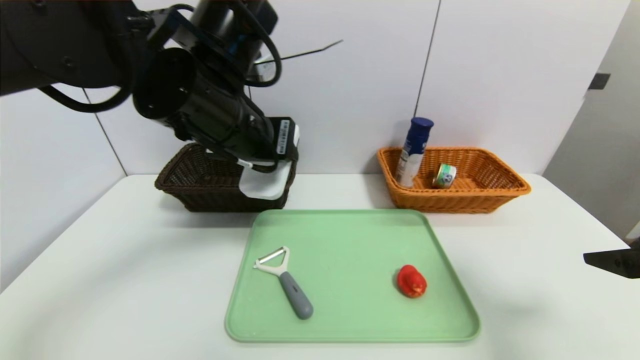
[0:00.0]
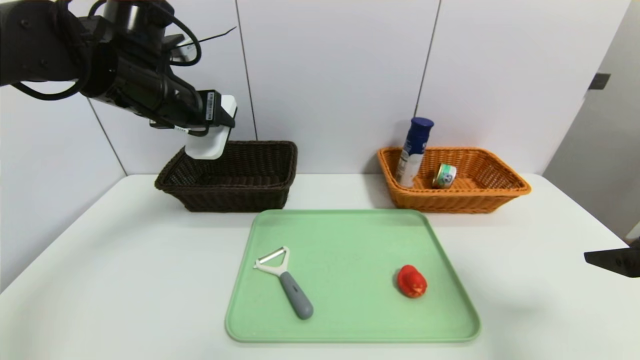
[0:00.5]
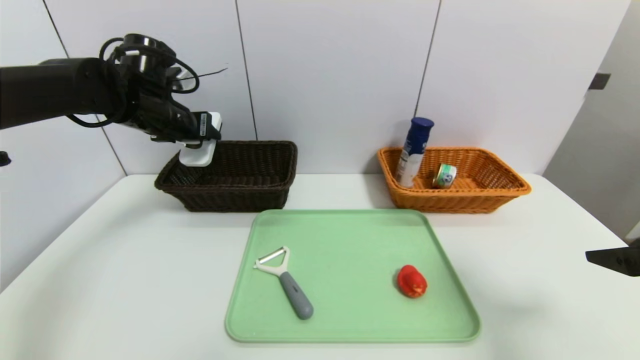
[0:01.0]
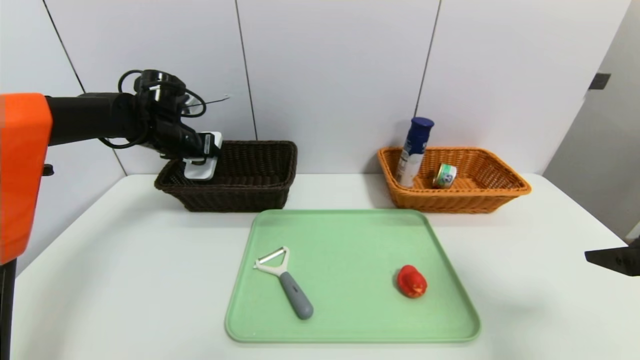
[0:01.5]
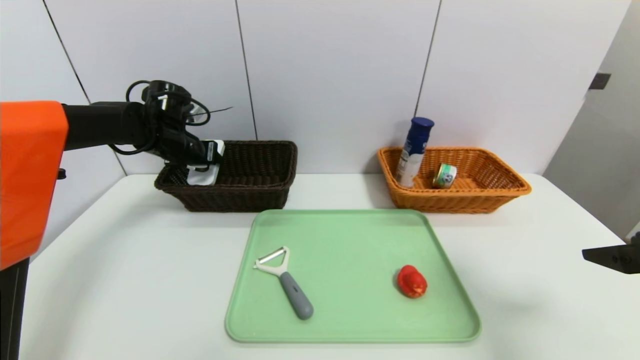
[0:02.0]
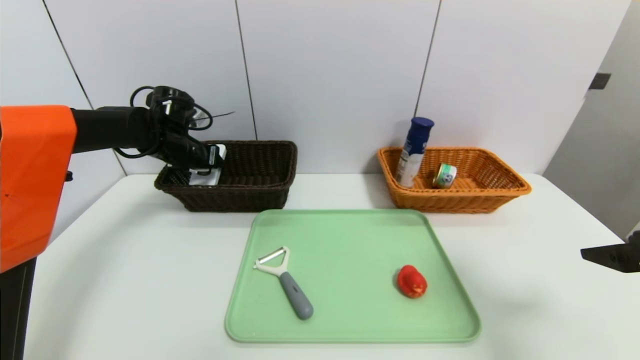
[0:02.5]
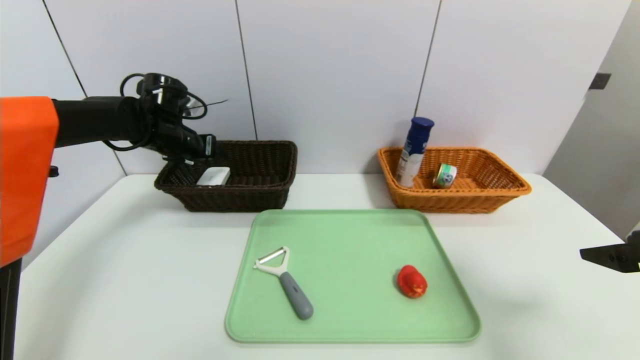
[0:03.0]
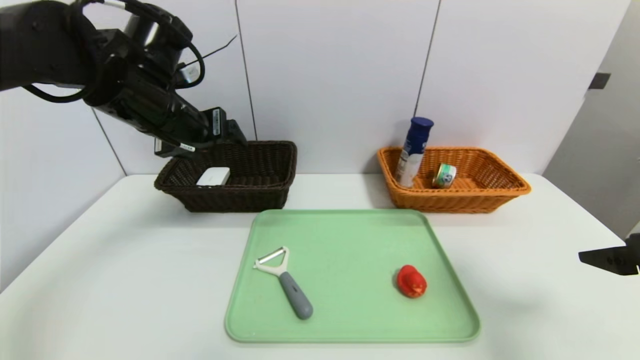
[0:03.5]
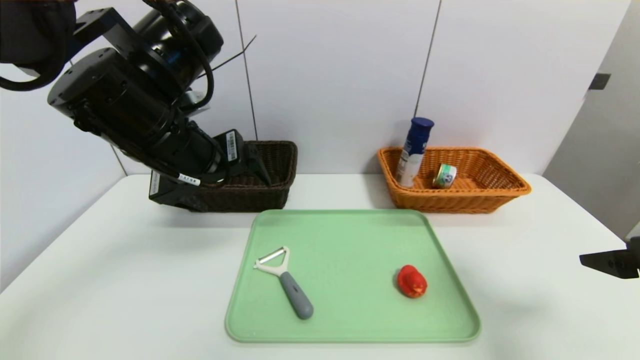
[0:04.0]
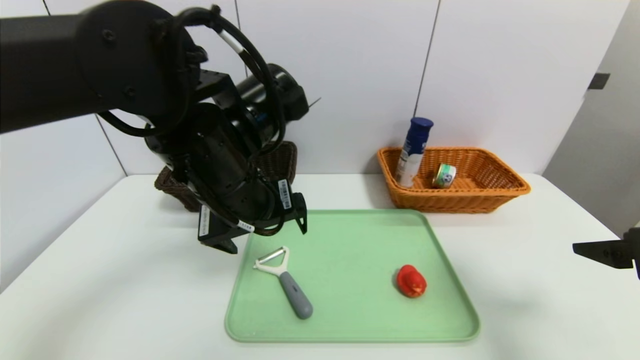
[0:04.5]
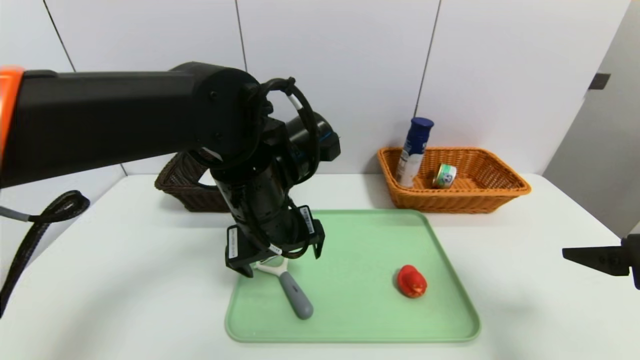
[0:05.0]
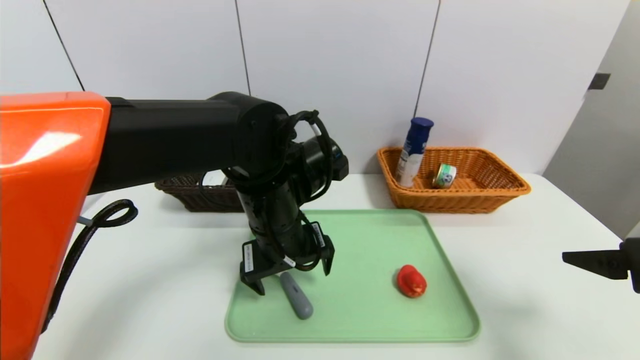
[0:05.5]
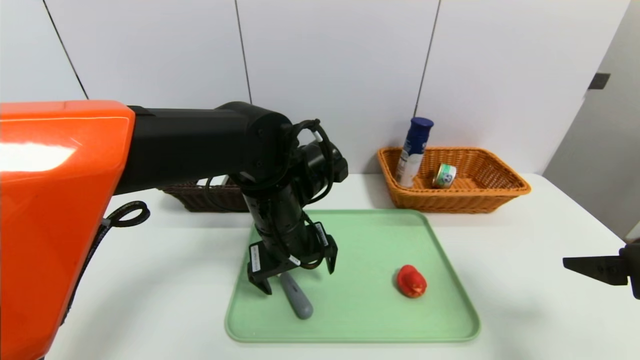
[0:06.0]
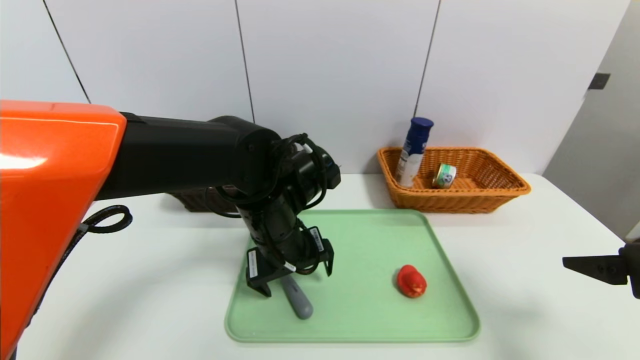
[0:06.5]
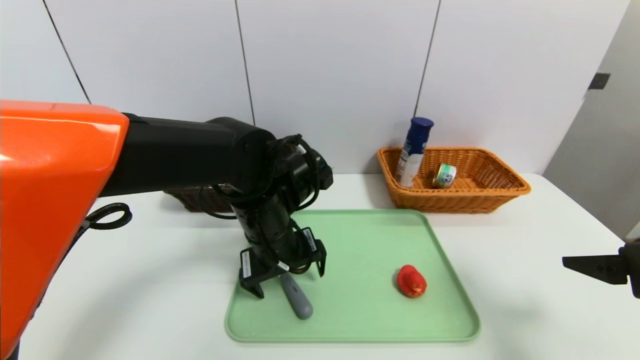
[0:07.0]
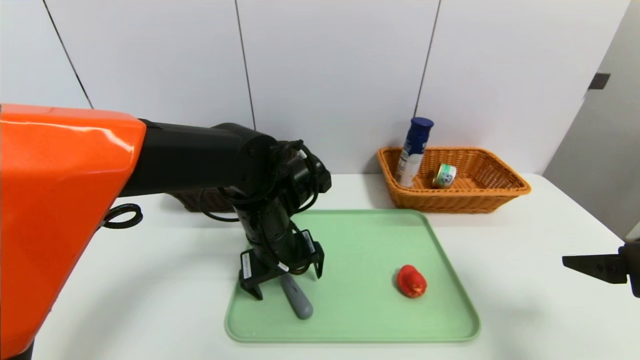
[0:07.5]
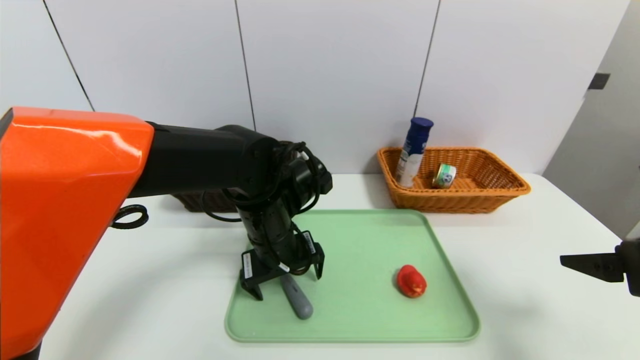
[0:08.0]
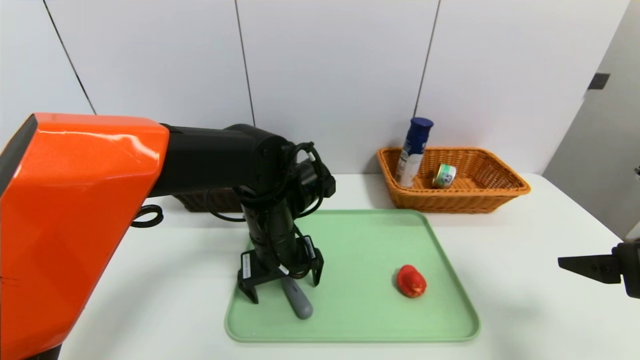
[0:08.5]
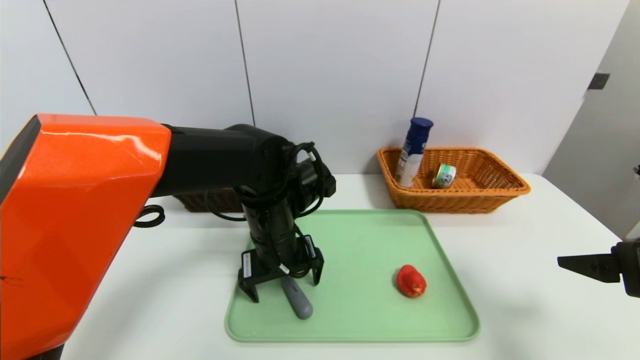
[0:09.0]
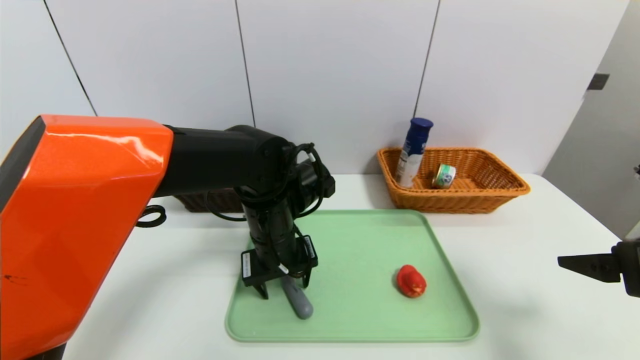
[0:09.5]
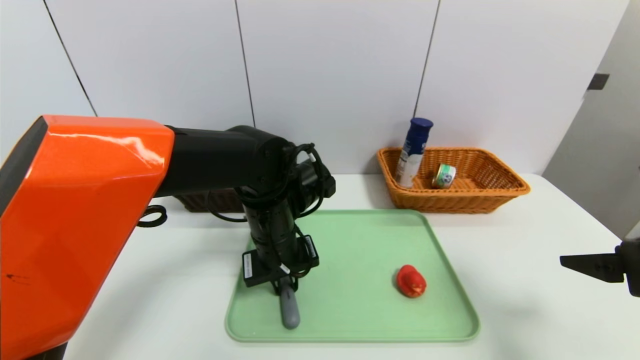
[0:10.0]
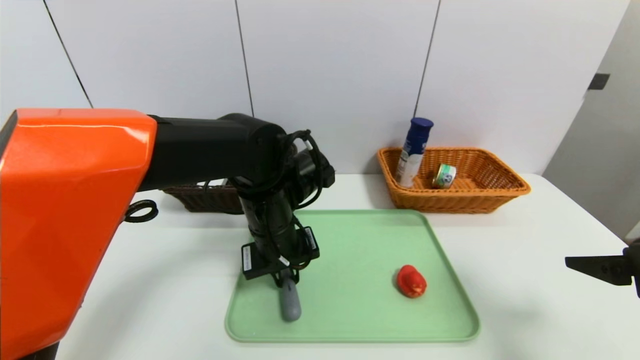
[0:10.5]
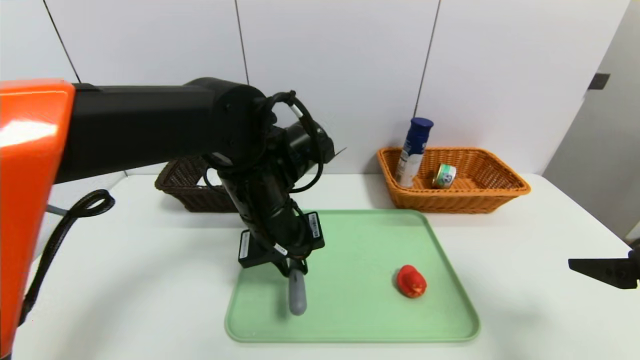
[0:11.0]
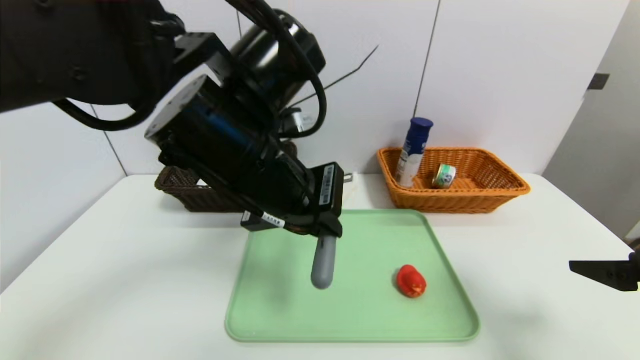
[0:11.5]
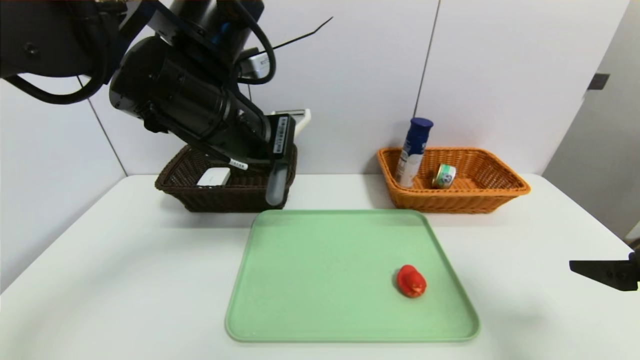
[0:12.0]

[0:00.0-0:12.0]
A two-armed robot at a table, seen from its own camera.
Task of the whole recording: place the food in the right basket with the right gripper, and place the non food items in the left basket with the left gripper.
Step, 0:00.0 to 0:03.0: Grasp the white eraser and put it in the left basket.
0:00.0 to 0:02.0: The left gripper travels forward, to the left and downward by approximately 25 cm.
0:02.0 to 0:04.0: The left gripper moves backward, to the right and upward, some 25 cm, and opens up.
0:04.0 to 0:06.0: The left gripper goes roughly 15 cm downward and to the right.
0:06.0 to 0:08.0: The grippers move only a little.
0:08.0 to 0:10.0: The left gripper closes up.
0:10.0 to 0:12.0: The left gripper shifts about 15 cm upward.

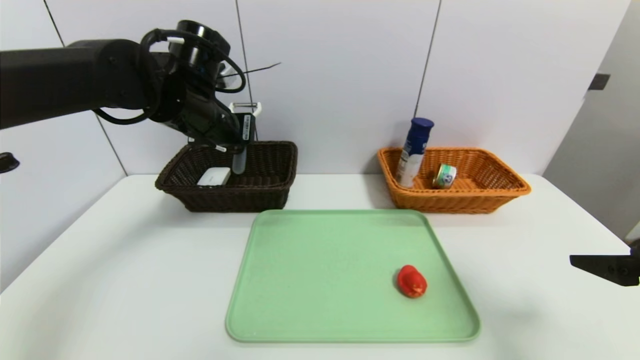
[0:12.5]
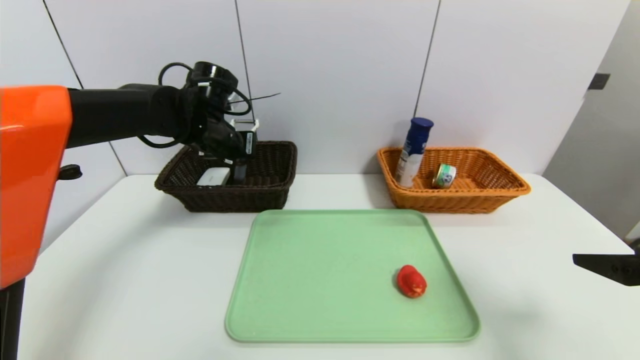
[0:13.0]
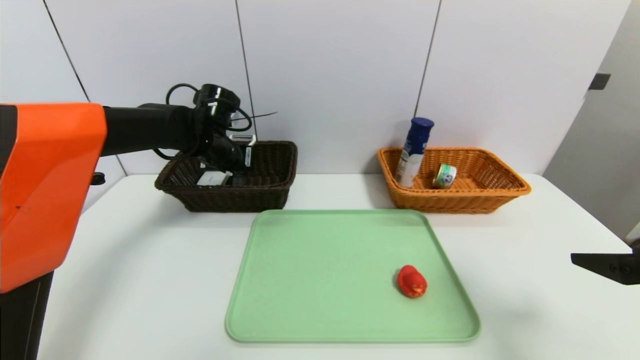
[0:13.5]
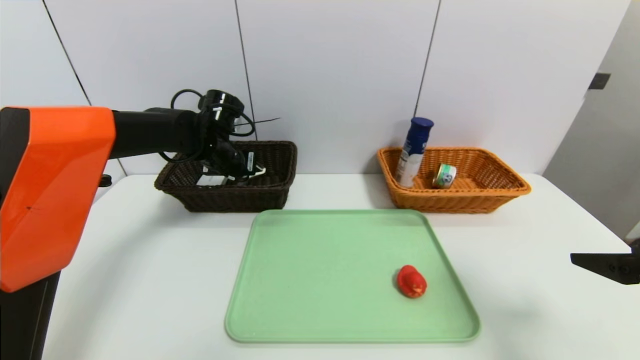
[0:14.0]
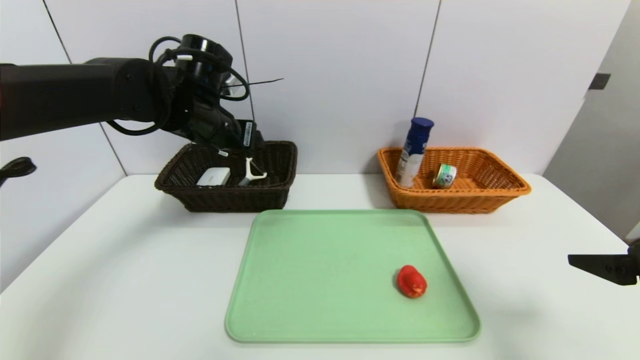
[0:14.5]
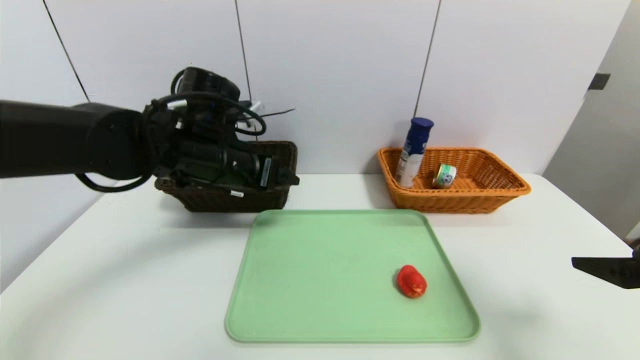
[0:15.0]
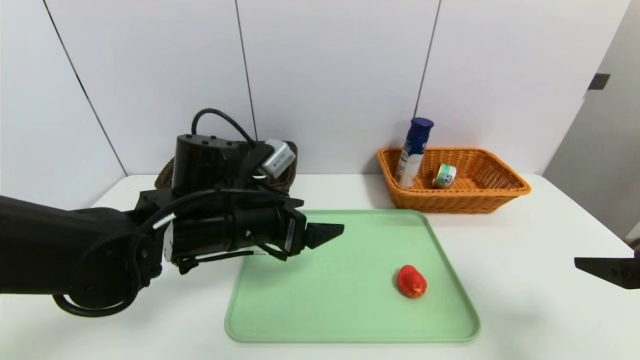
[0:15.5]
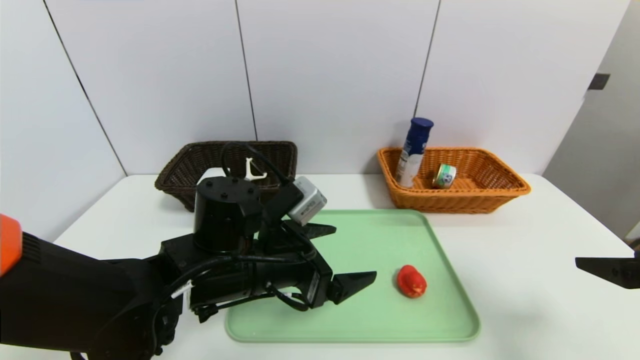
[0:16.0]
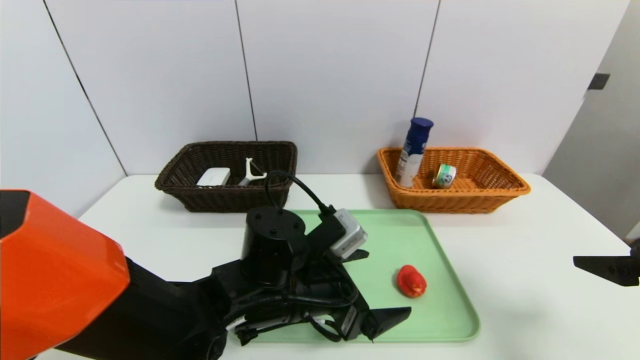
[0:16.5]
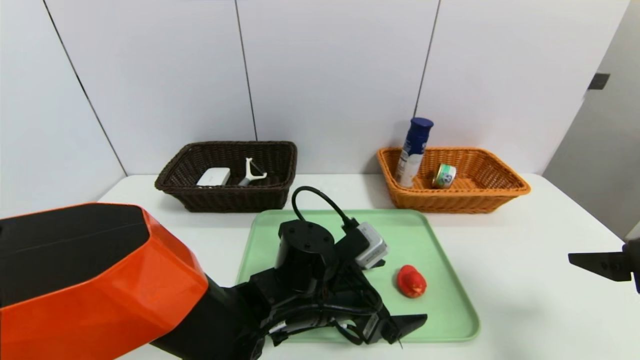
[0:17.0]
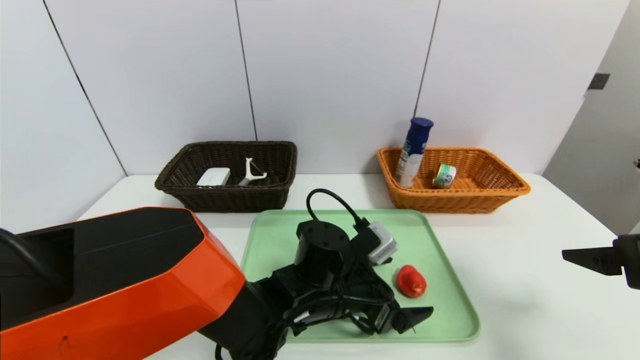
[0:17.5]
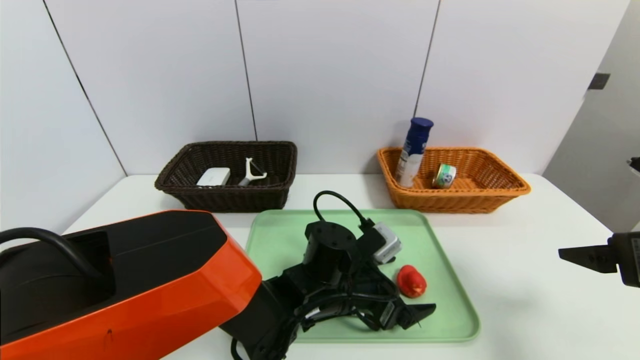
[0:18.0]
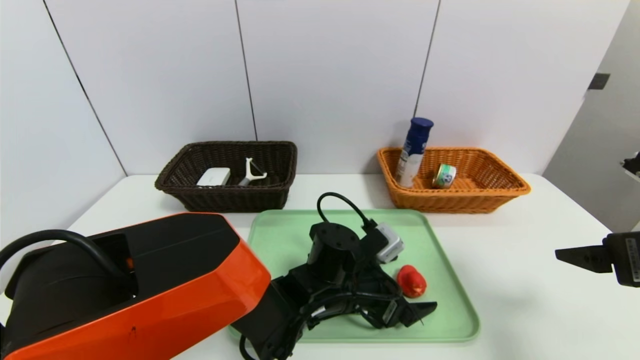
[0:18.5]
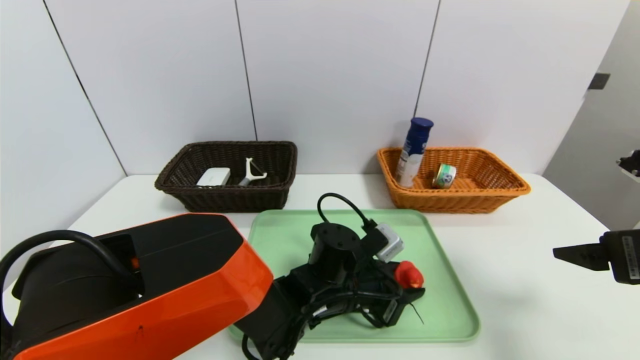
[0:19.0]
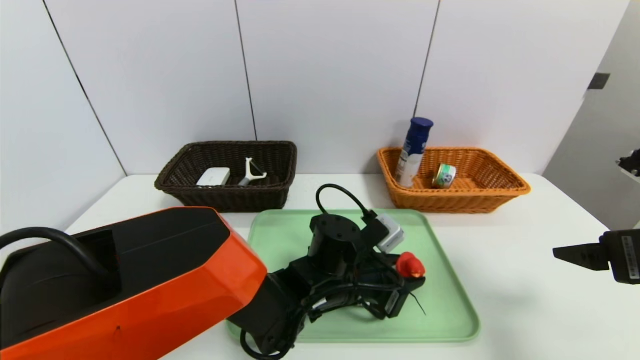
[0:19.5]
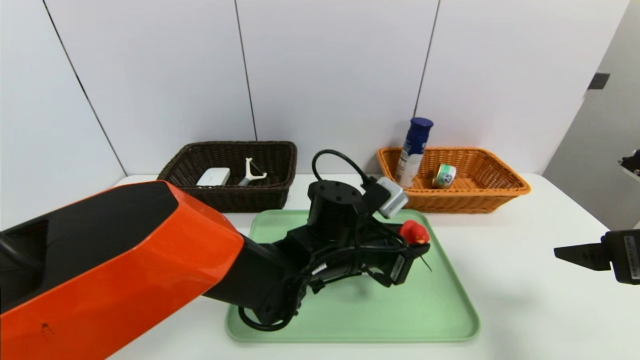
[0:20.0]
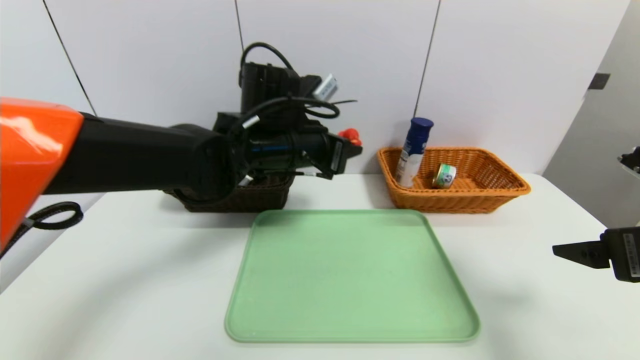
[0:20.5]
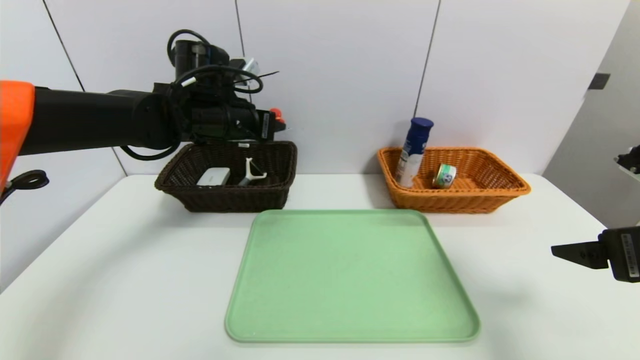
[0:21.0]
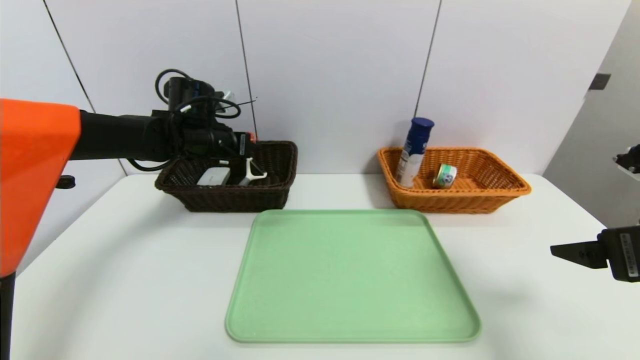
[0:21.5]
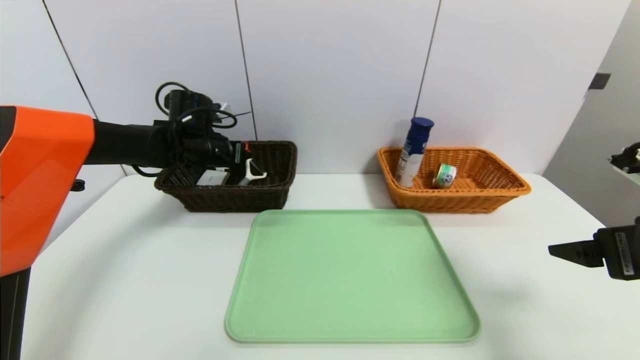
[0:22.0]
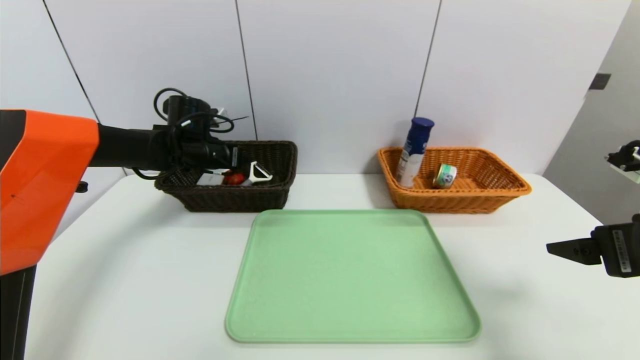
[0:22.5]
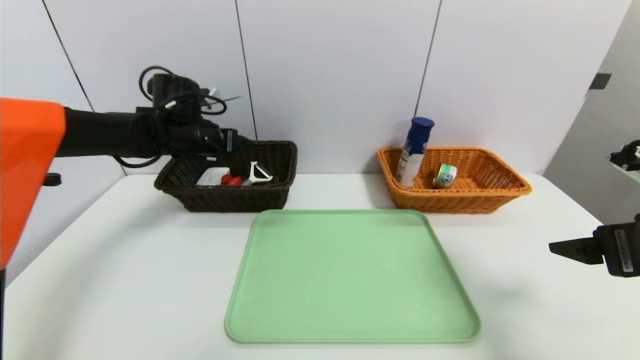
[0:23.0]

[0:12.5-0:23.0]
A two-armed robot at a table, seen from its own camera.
Task of the whole recording: place the food in the right basket with the right gripper, and place the non food items in the left basket with the left gripper.
Step, 0:14.5 to 0:23.0: Grasp the red duck and put it in the left basket.
0:12.5 to 0:14.5: The left gripper reaches some 10 cm downward, then returns, and opens its fingers.
0:14.5 to 0:16.5: The left gripper travels backward, downward and to the right by approximately 25 cm.
0:16.5 to 0:19.0: The left gripper shifts roughly 10 cm to the right and downward, and closes up.
0:19.0 to 0:21.0: The left gripper is displaced upward, to the left and forward by some 30 cm.
0:21.0 to 0:23.0: The left gripper is displaced to the left by roughly 10 cm, and opens.
